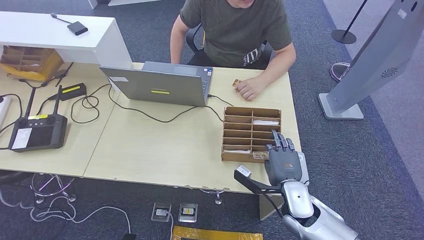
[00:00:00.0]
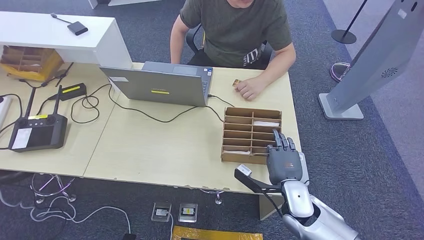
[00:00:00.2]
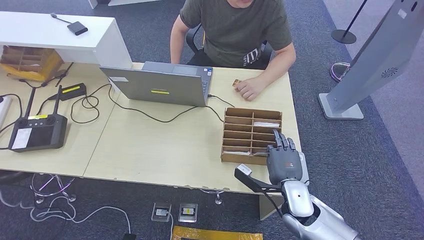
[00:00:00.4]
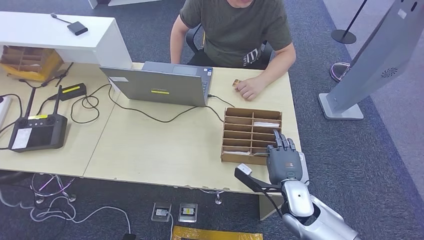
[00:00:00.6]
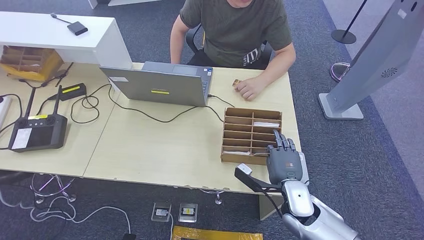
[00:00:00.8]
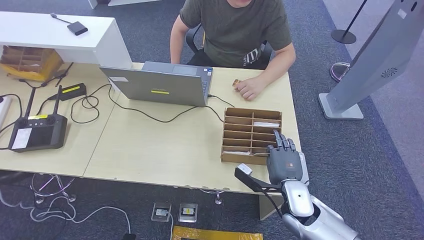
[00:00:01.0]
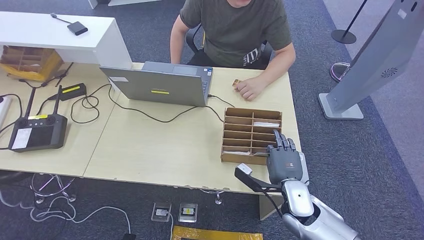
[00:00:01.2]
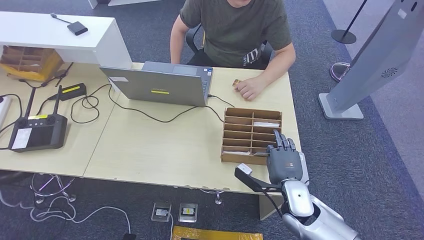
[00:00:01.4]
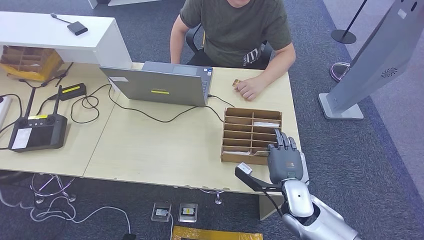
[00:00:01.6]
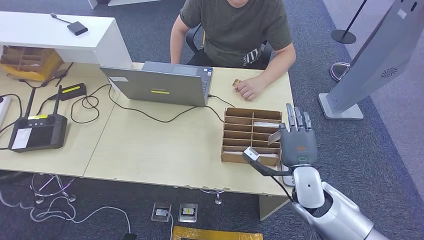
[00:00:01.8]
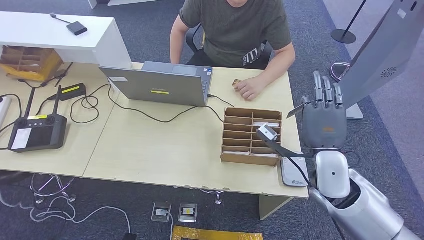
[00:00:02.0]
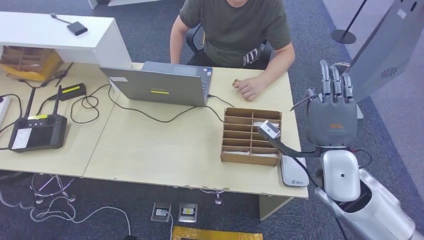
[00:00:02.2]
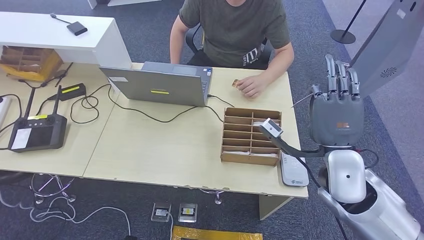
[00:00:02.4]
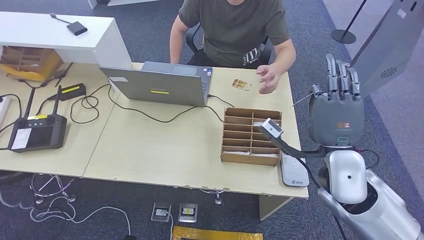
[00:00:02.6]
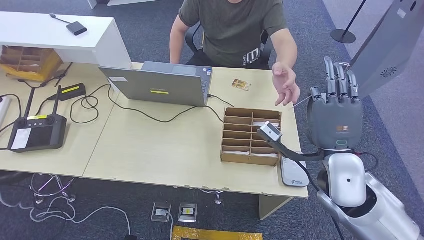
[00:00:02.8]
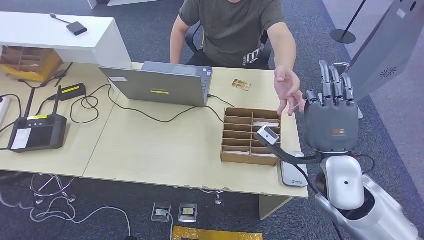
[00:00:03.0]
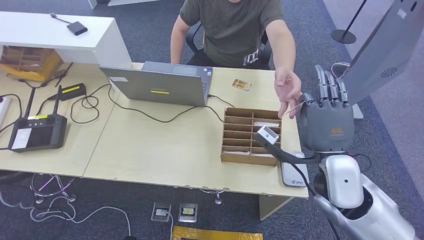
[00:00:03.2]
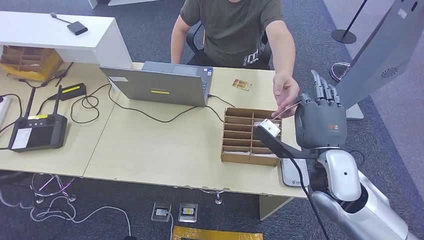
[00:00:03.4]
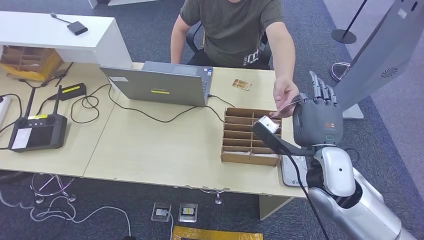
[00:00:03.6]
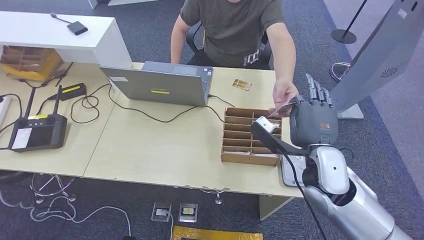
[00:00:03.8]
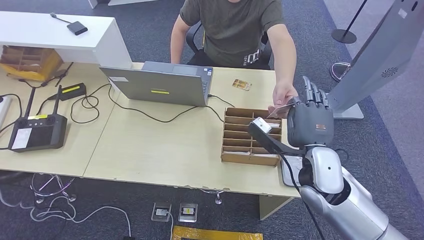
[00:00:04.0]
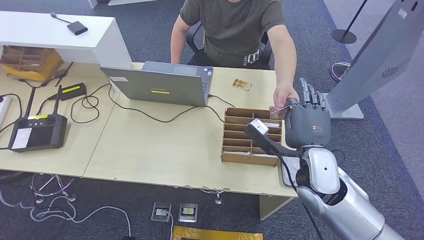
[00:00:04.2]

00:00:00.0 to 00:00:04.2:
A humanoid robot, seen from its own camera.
Step, 00:00:00.0 to 00:00:02.2: Pick up the room key from the key card box.
Step, 00:00:02.4 to 00:00:04.2: Hand the room key to the person.
00:00:00.0 to 00:00:01.4: The two hands keep their place.
00:00:01.4 to 00:00:02.8: The right hand heads upward, covering roughly 15 cm.
00:00:02.8 to 00:00:04.2: The right hand ends up approximately 5 cm from where it was.
